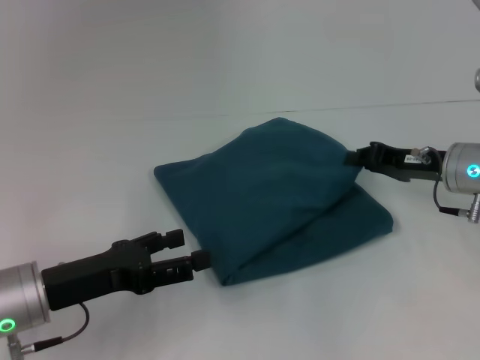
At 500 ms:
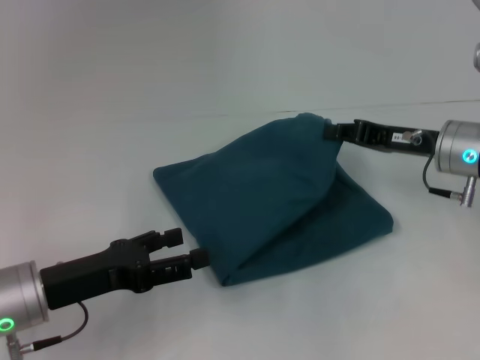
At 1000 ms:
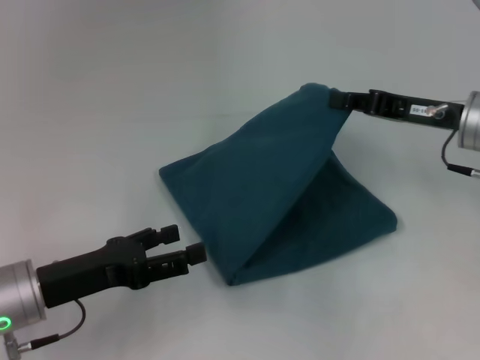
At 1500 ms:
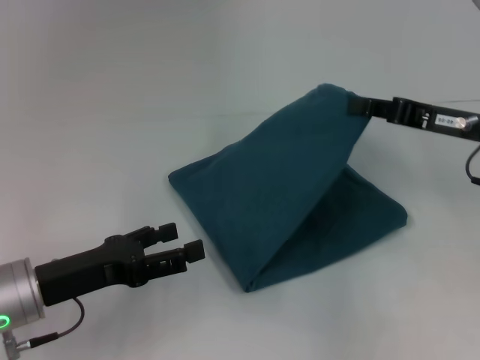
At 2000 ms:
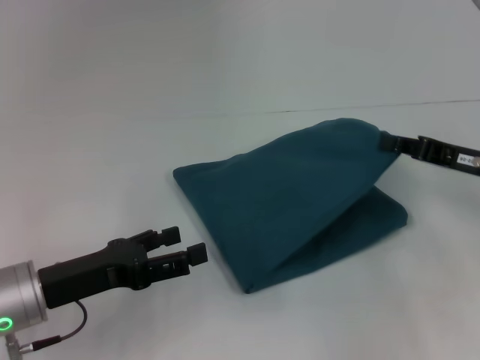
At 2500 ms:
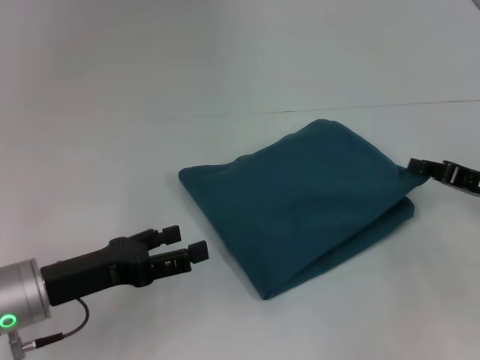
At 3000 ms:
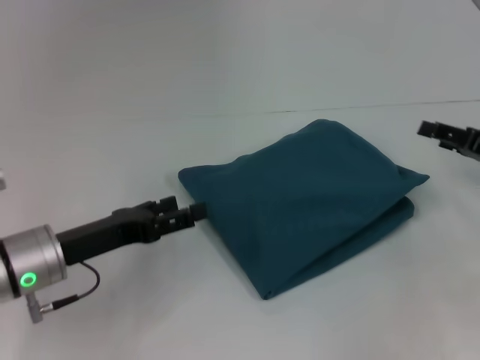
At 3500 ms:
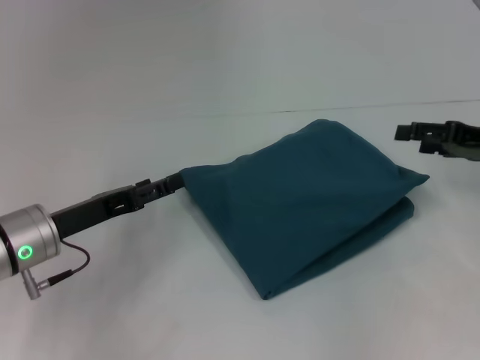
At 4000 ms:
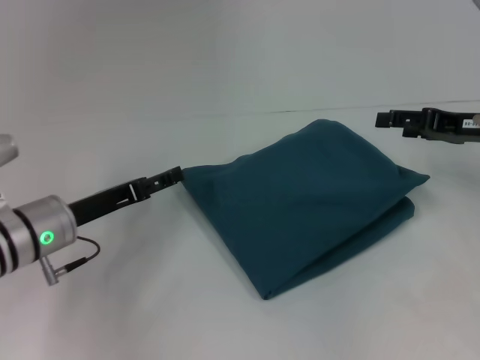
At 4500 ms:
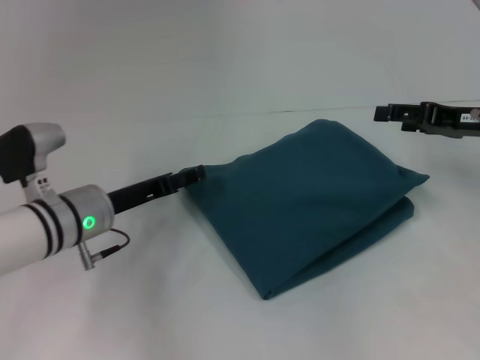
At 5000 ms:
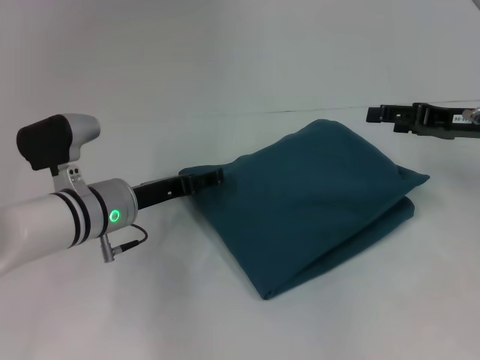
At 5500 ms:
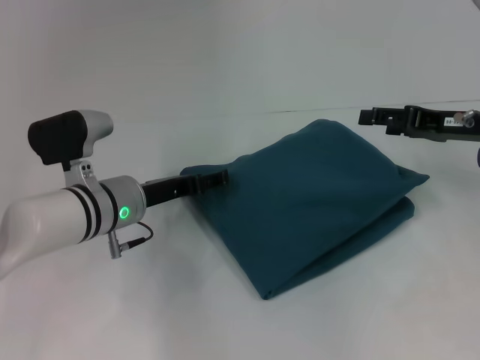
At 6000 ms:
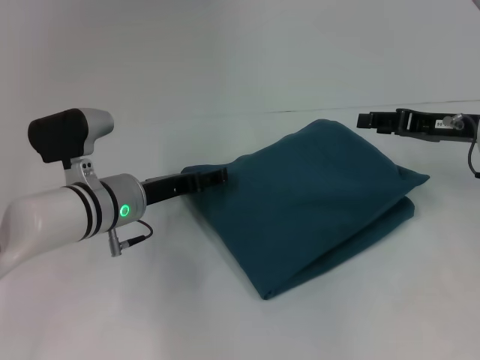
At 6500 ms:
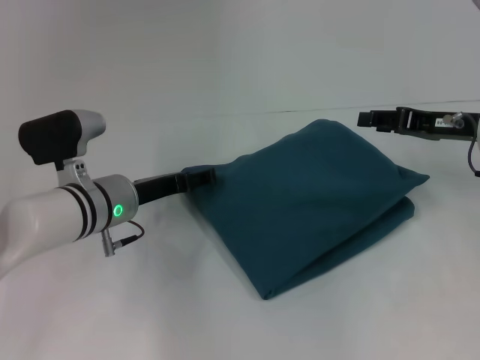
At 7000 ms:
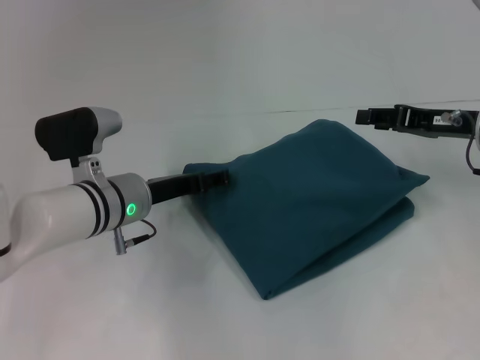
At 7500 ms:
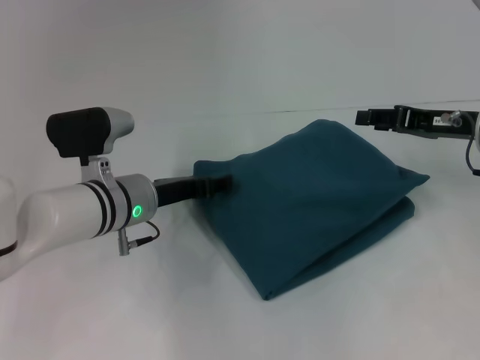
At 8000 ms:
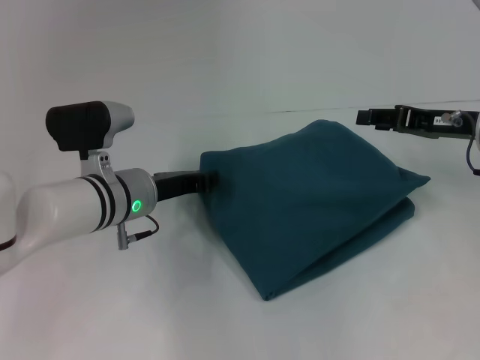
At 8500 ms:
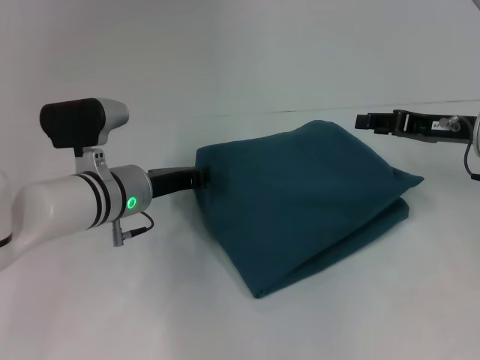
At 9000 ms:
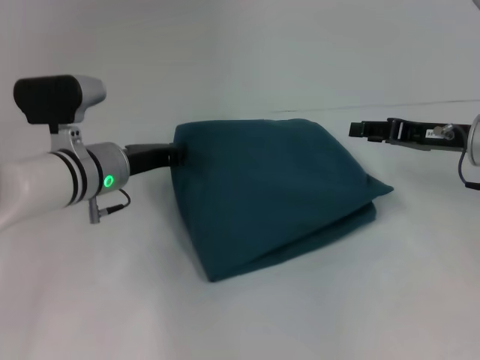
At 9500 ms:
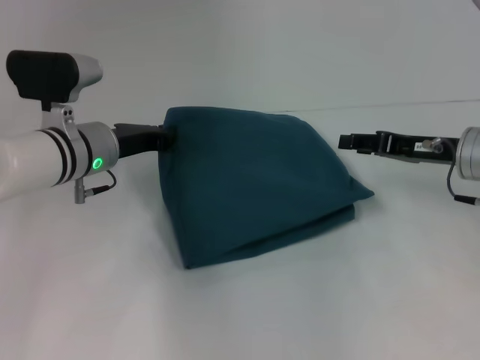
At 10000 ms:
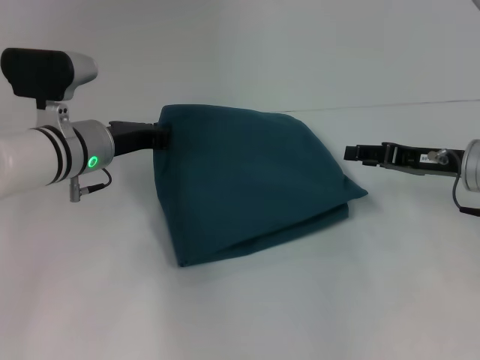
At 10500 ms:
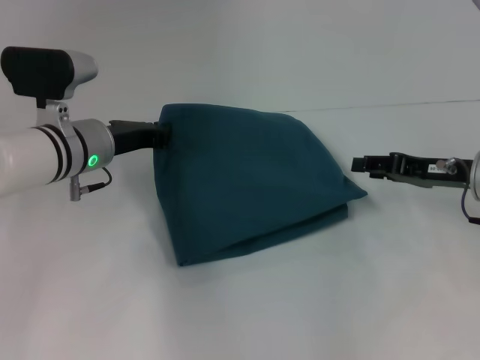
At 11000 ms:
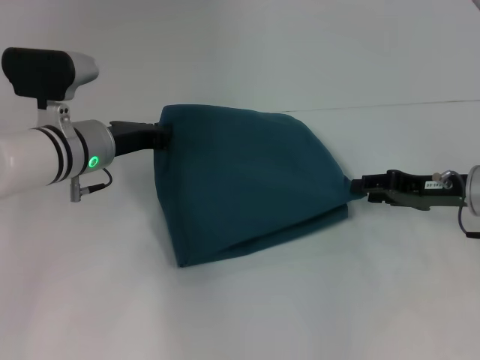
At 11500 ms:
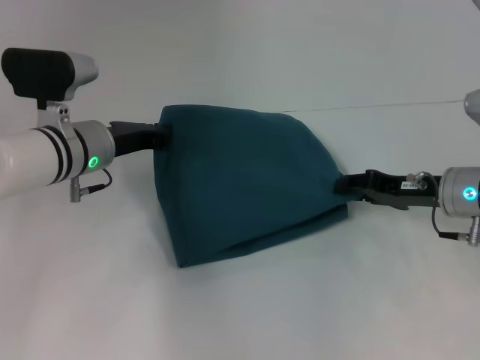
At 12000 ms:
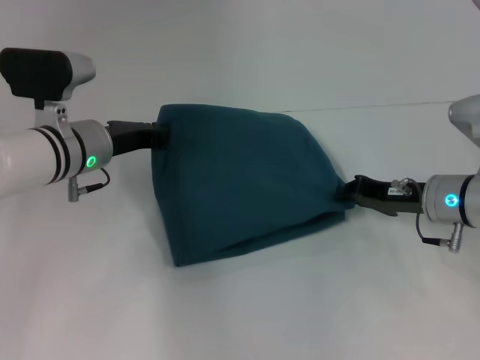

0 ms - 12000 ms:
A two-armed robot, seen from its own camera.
0 ms - 2000 ms: The right gripper ends up roughly 5 cm from where it was.
2000 ms - 4000 ms: The right gripper moves some 5 cm, and opens. Meanwhile the left gripper shifts about 5 cm forward.
4000 ms - 6000 ms: The left gripper is displaced to the right by some 5 cm.
6000 ms - 8000 ms: The left gripper closes its fingers.
8000 ms - 10000 ms: The left gripper moves about 5 cm.
10000 ms - 12000 ms: The right gripper moves roughly 5 cm.

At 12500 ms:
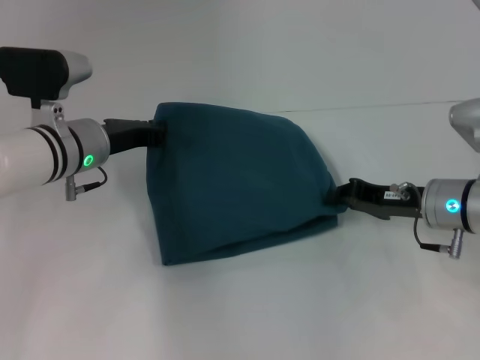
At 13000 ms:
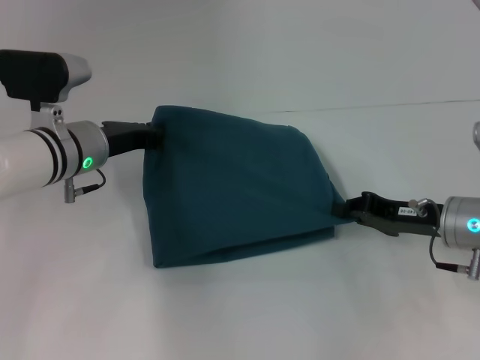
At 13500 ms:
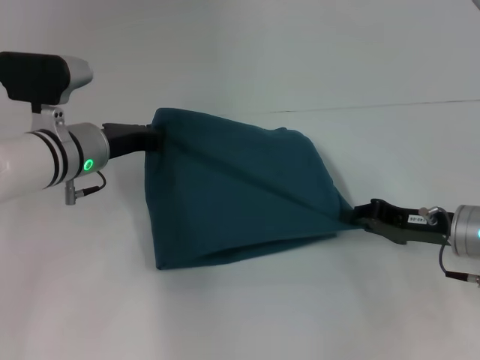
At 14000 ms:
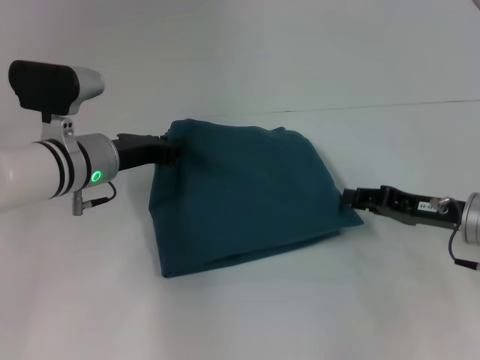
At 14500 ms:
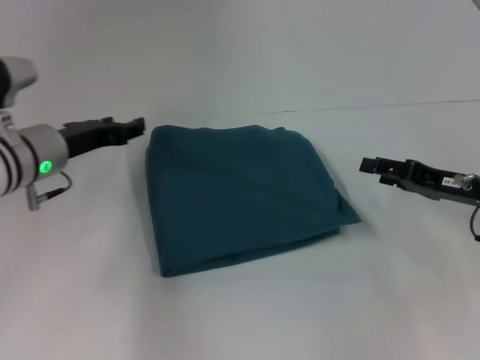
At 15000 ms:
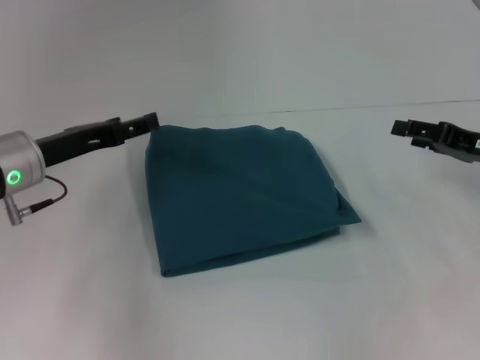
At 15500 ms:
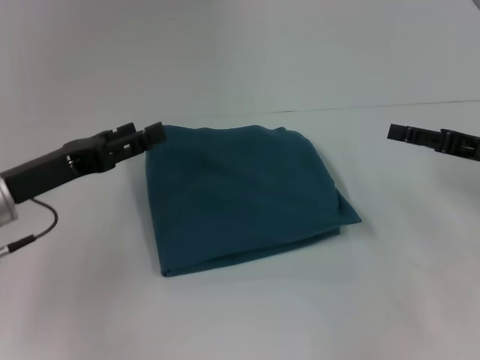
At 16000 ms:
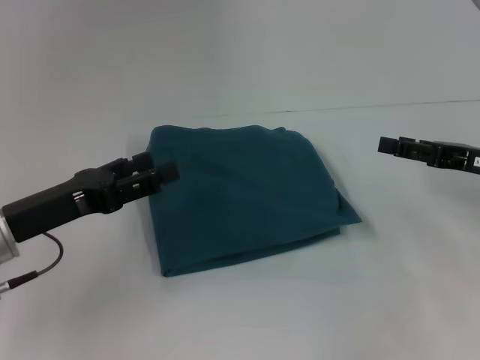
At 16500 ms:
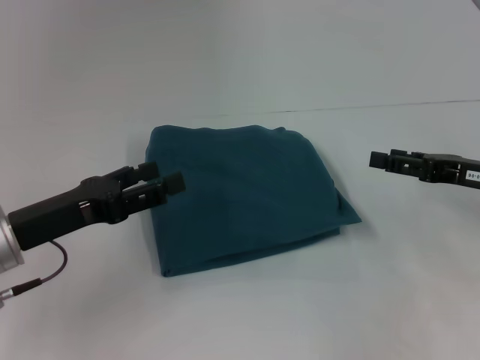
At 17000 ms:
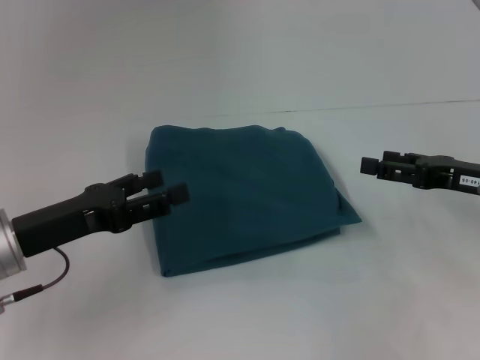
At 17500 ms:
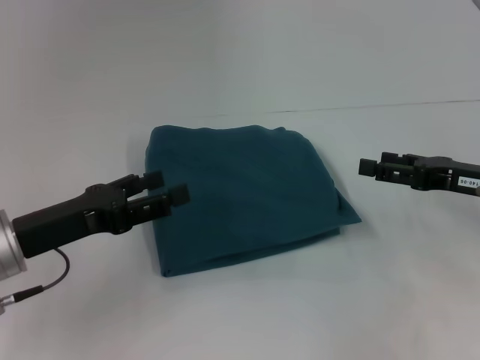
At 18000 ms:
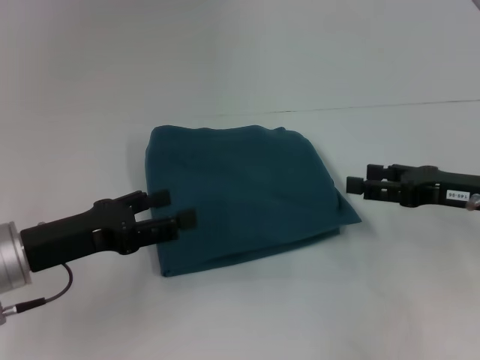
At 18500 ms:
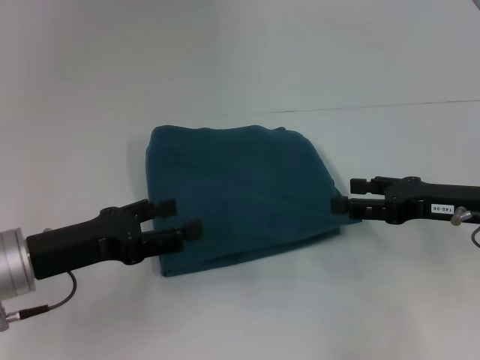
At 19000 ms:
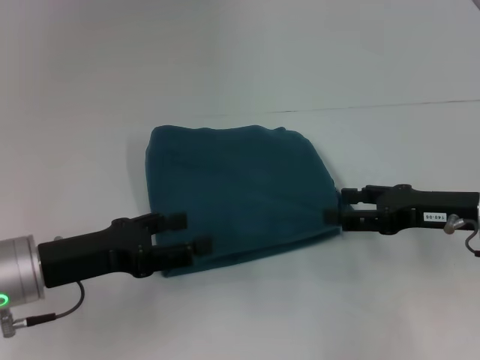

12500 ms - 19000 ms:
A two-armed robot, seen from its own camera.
12500 ms - 14500 ms: The right gripper travels to the right by approximately 5 cm, and opens. The left gripper opens its fingers.
14500 ms - 17000 ms: The left gripper goes about 10 cm backward, and opens up.
17000 ms - 19000 ms: There are only small adjustments of the grippers.

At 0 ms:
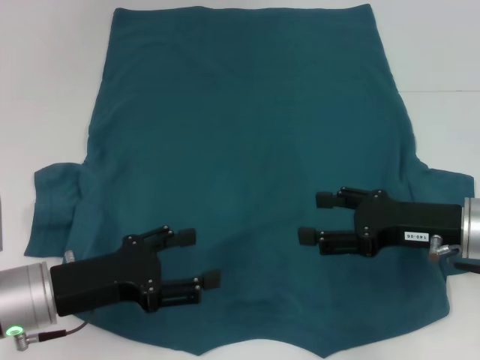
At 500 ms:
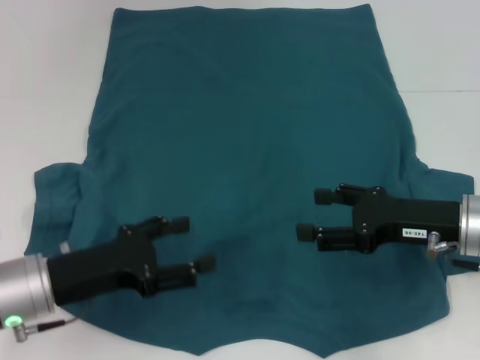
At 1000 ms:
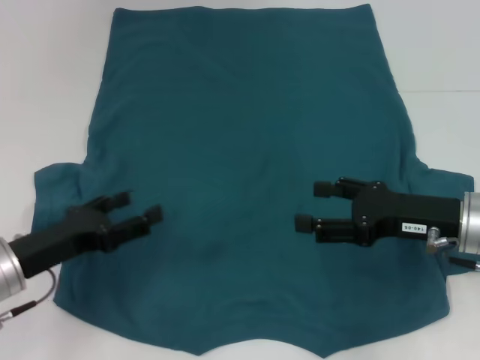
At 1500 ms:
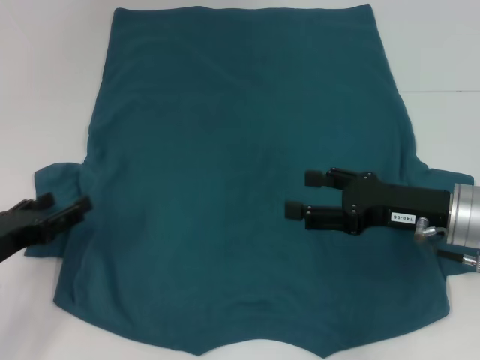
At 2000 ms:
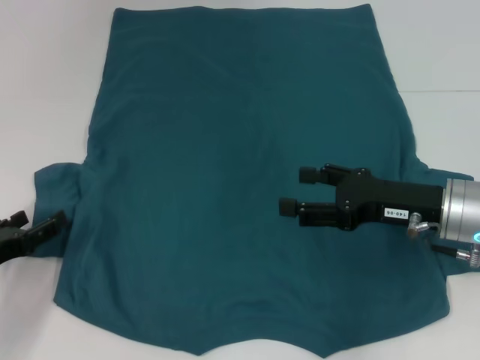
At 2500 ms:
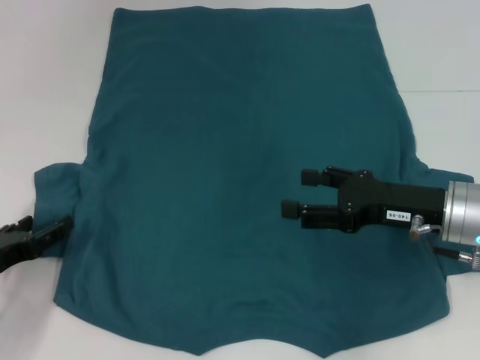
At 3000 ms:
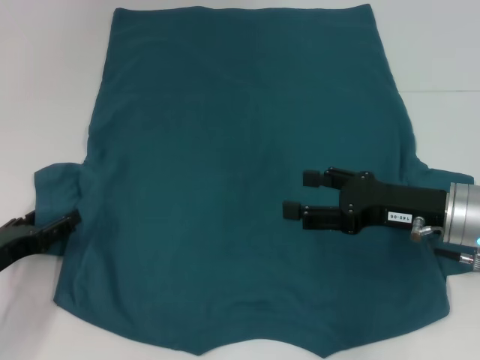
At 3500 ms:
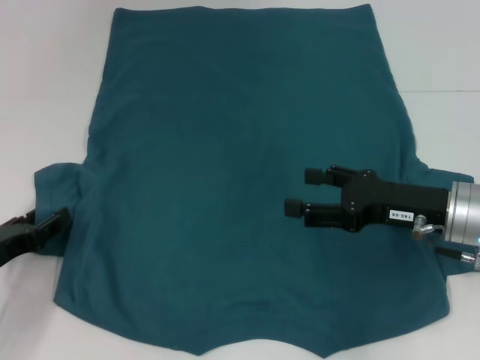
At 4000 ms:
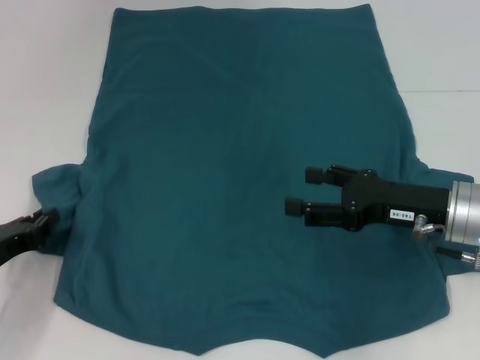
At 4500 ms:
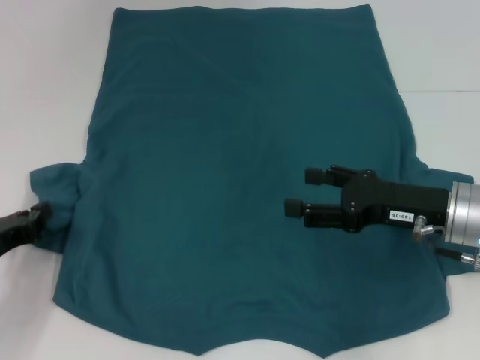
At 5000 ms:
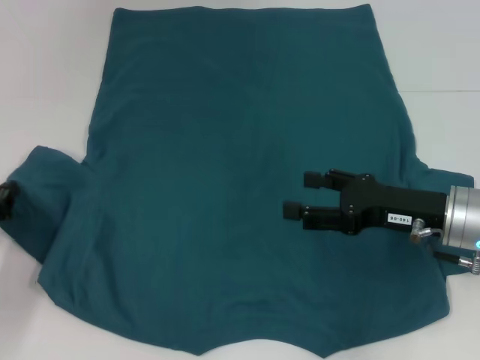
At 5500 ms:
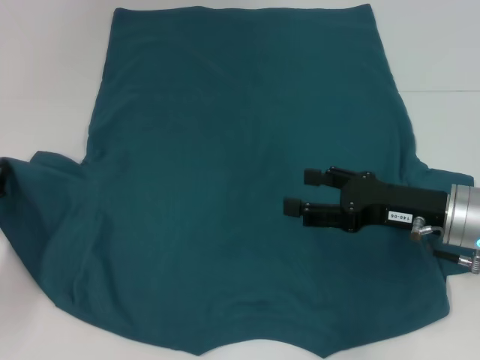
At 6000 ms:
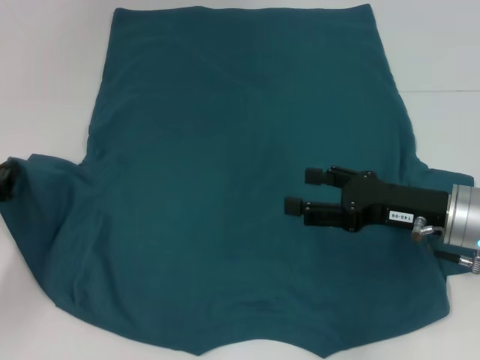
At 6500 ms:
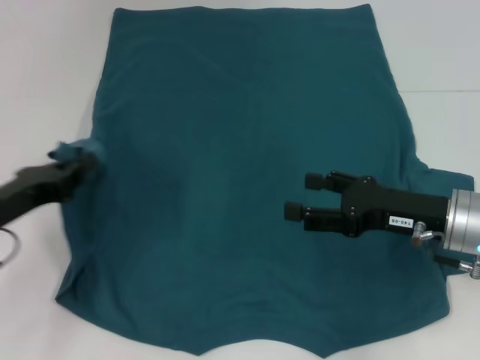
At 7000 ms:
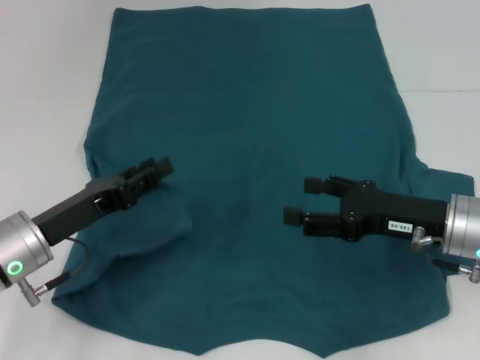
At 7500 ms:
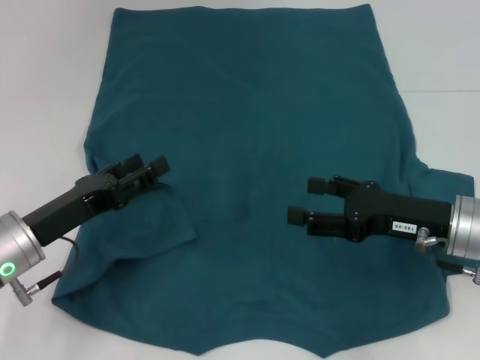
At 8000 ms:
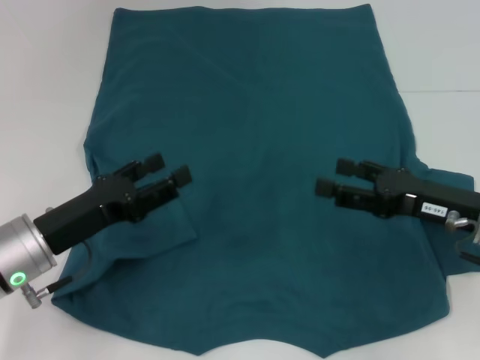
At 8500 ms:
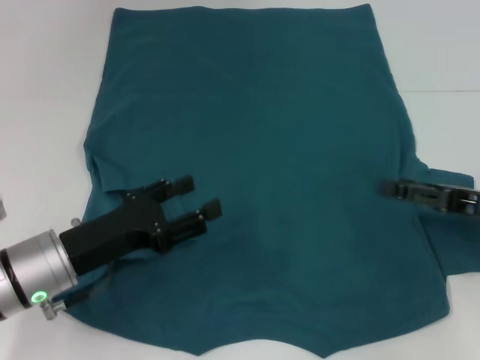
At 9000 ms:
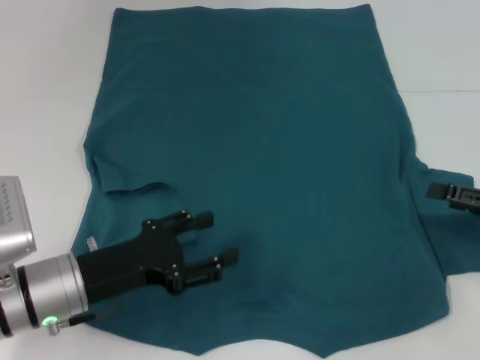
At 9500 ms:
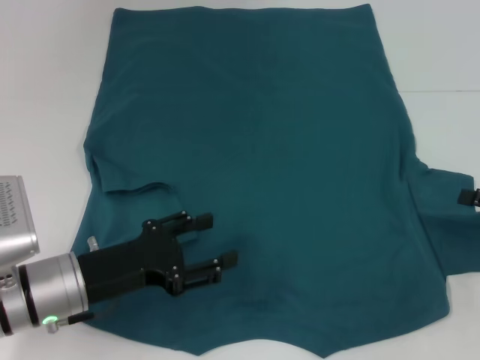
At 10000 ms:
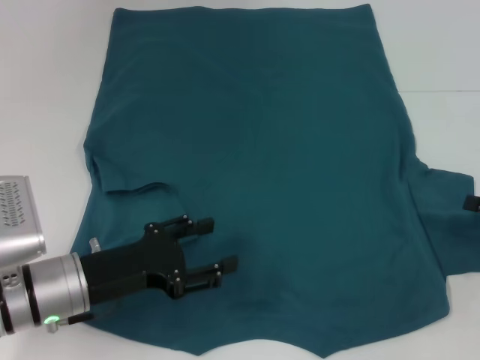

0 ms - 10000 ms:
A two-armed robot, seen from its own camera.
Step, 0 ms - 7500 ms: Fold the bottom left sleeve with your left hand.
0 ms - 2000 ms: The left gripper moves to the left, approximately 10 cm.
2000 ms - 4000 ms: The left gripper closes.
4000 ms - 6000 ms: The left gripper moves some 5 cm, and closes.
6000 ms - 8000 ms: The left gripper is displaced to the right by some 10 cm, and opens its fingers.
8000 ms - 10000 ms: The right gripper is displaced to the right by approximately 15 cm.